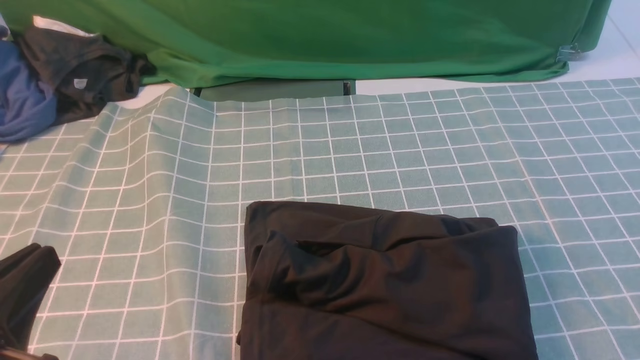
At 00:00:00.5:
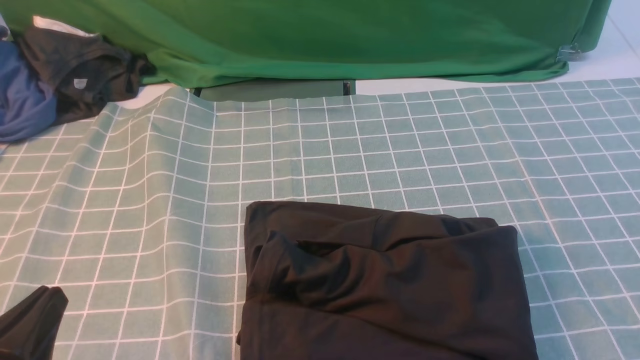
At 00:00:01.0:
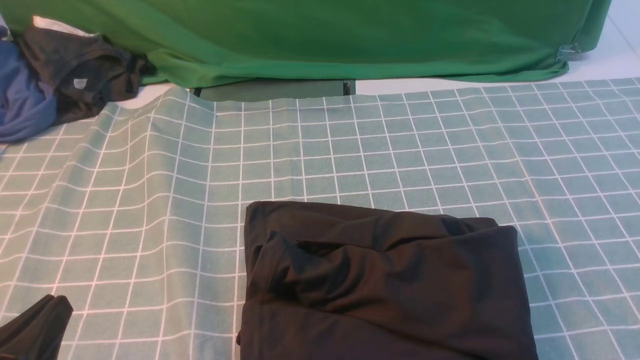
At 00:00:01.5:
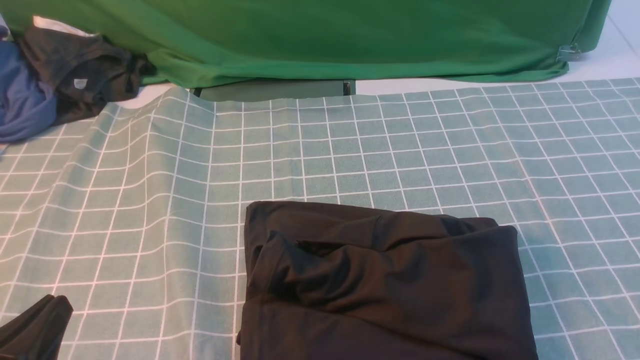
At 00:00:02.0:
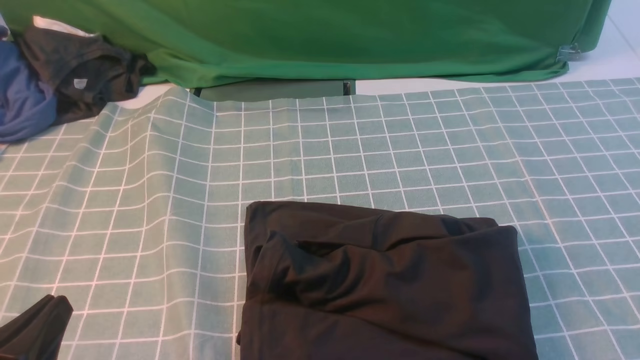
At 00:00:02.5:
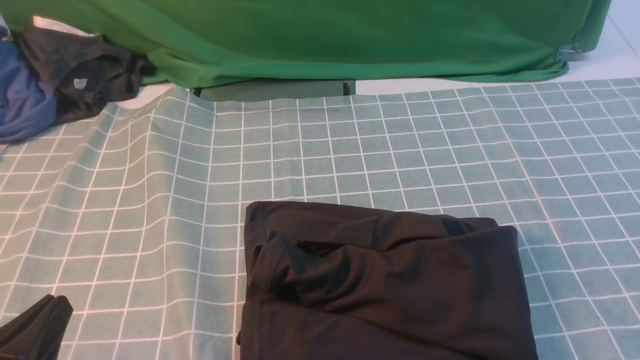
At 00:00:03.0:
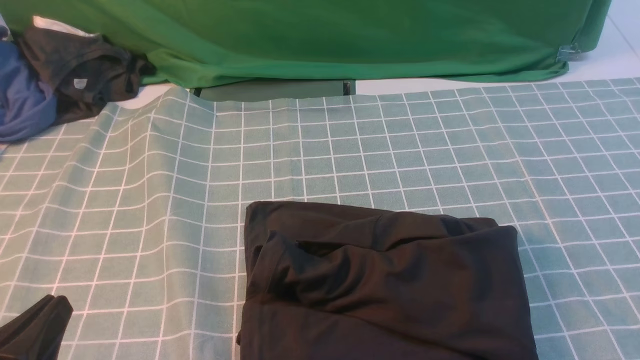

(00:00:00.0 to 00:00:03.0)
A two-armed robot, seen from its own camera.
00:00:00.0 - 00:00:01.5: The left gripper shifts approximately 5 cm downward.
00:00:01.5 - 00:00:03.0: Neither gripper changes place.

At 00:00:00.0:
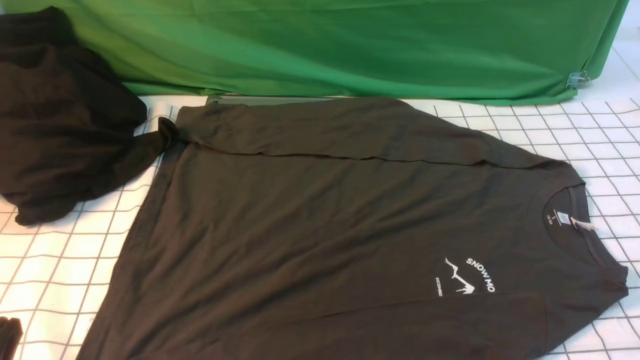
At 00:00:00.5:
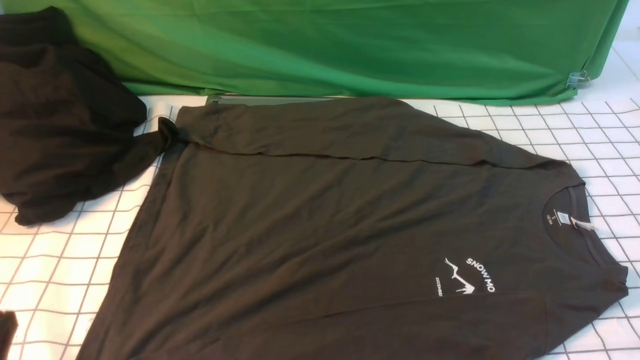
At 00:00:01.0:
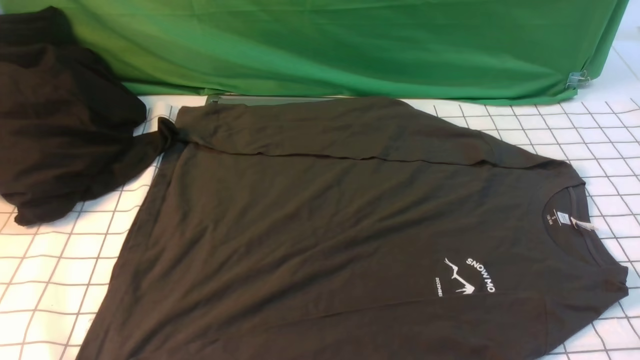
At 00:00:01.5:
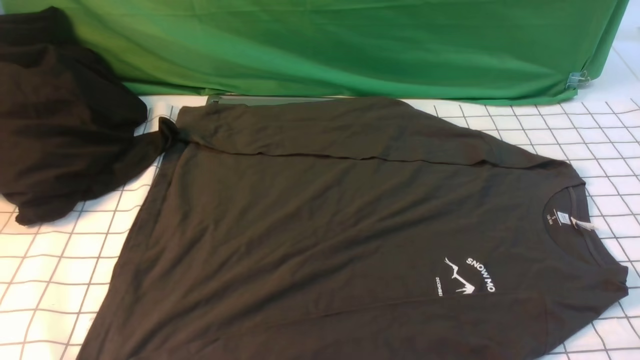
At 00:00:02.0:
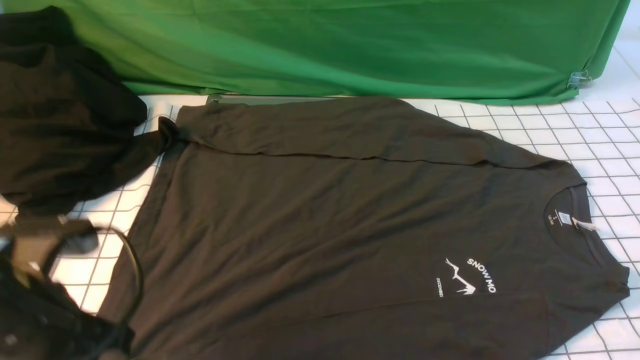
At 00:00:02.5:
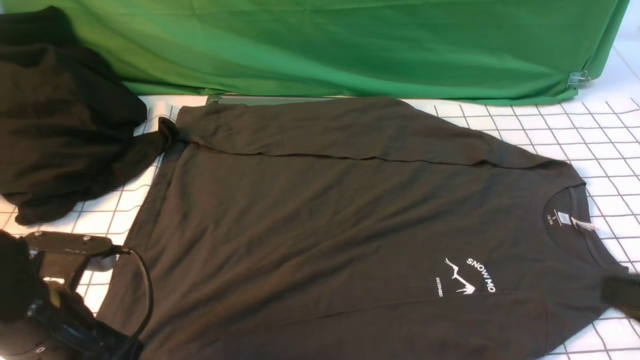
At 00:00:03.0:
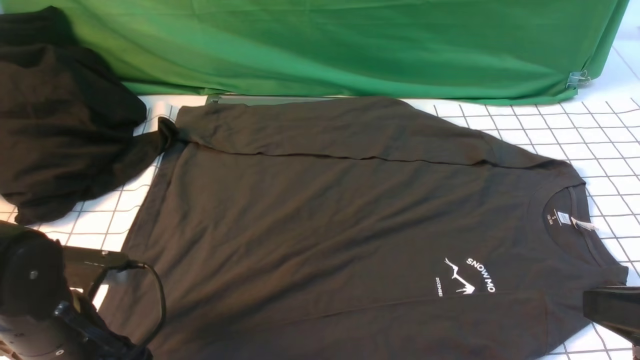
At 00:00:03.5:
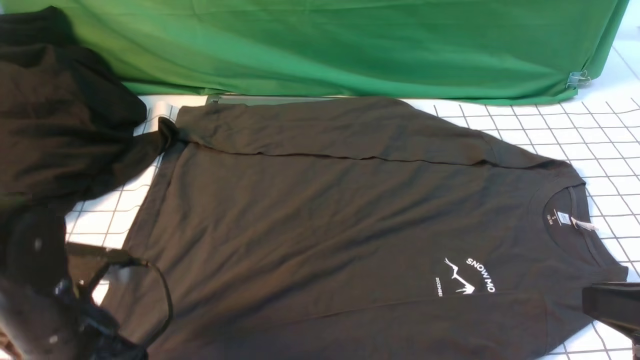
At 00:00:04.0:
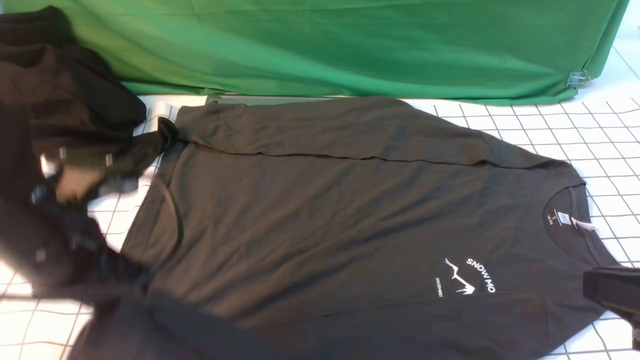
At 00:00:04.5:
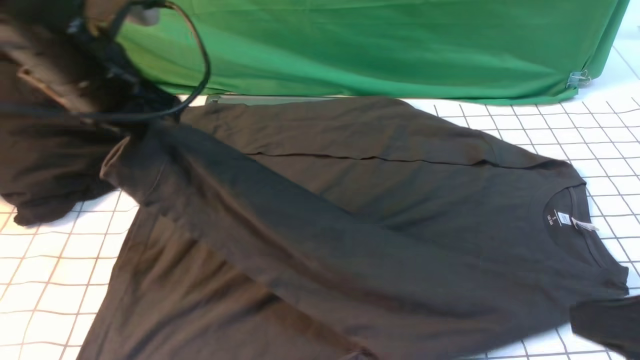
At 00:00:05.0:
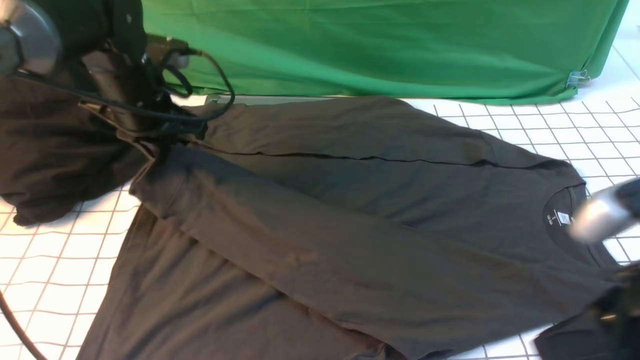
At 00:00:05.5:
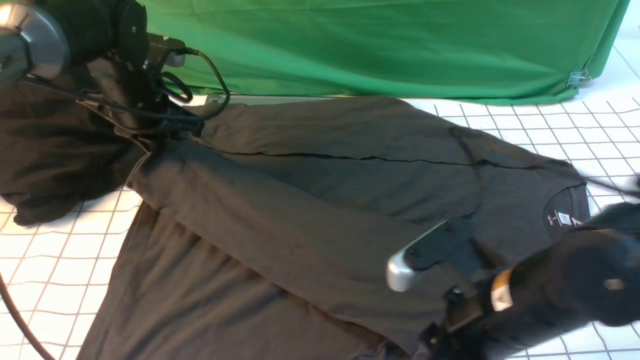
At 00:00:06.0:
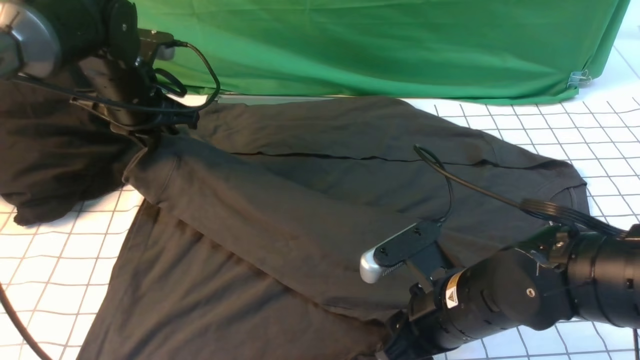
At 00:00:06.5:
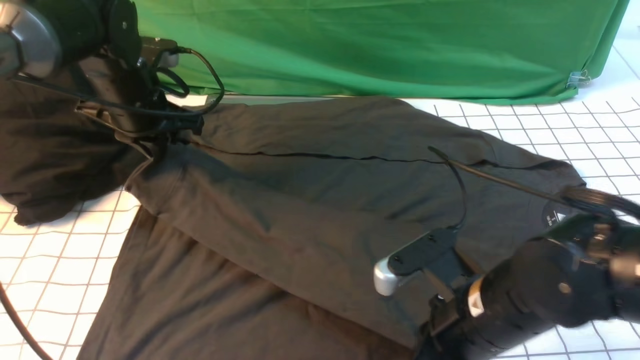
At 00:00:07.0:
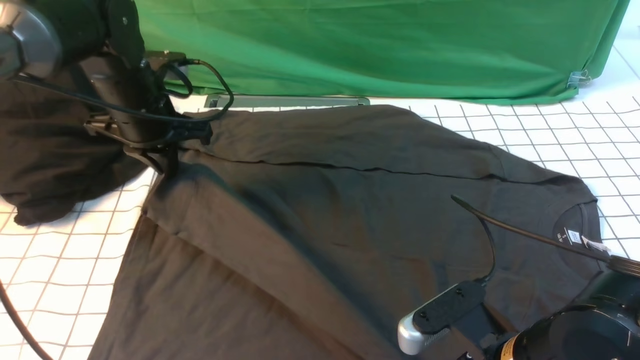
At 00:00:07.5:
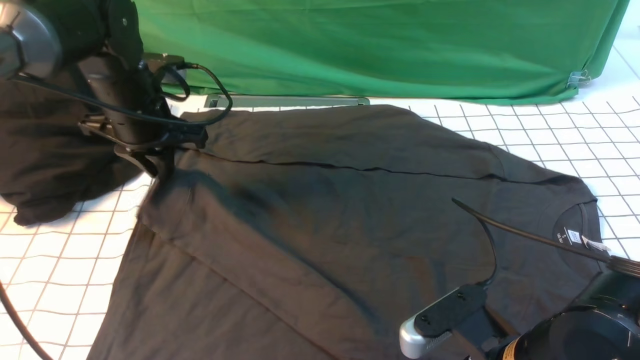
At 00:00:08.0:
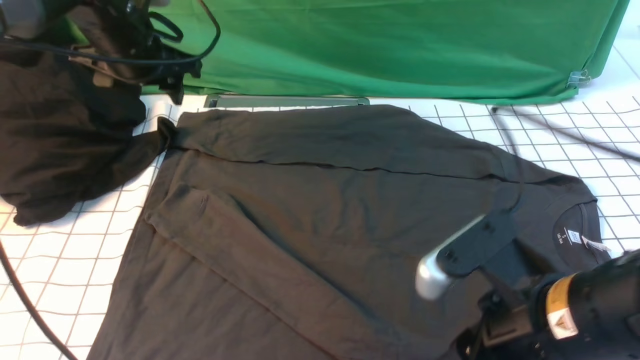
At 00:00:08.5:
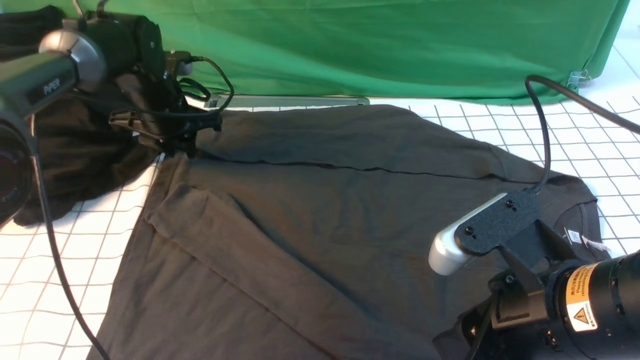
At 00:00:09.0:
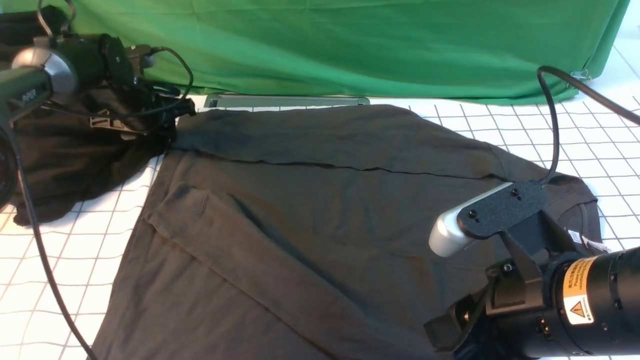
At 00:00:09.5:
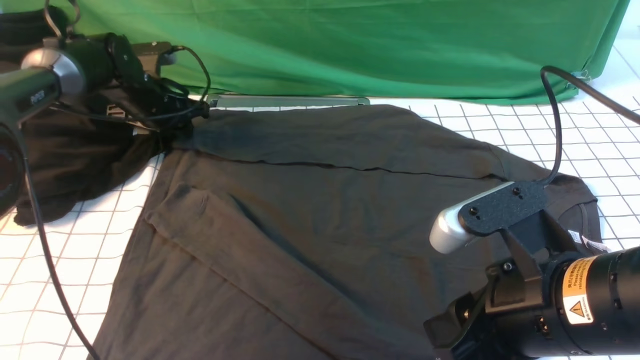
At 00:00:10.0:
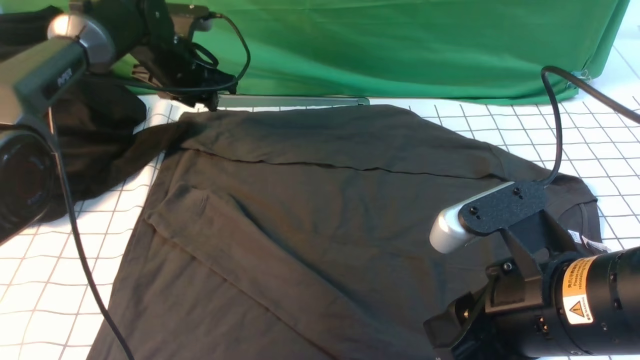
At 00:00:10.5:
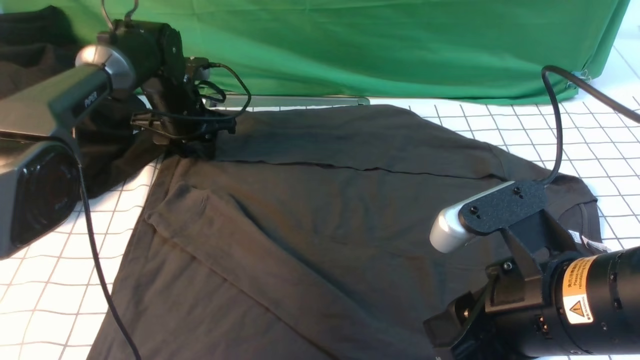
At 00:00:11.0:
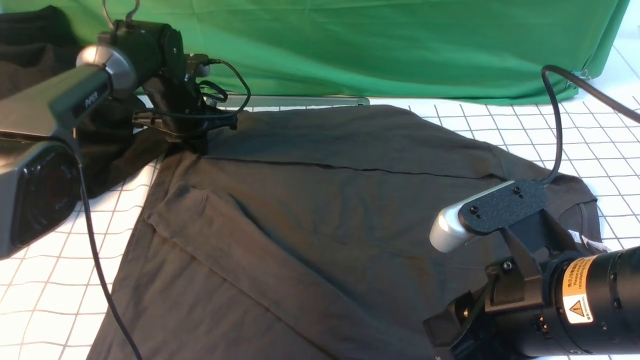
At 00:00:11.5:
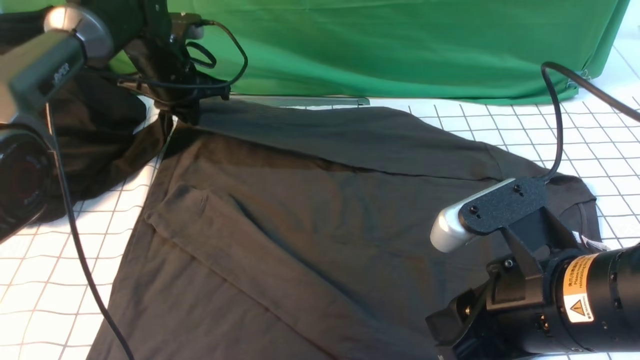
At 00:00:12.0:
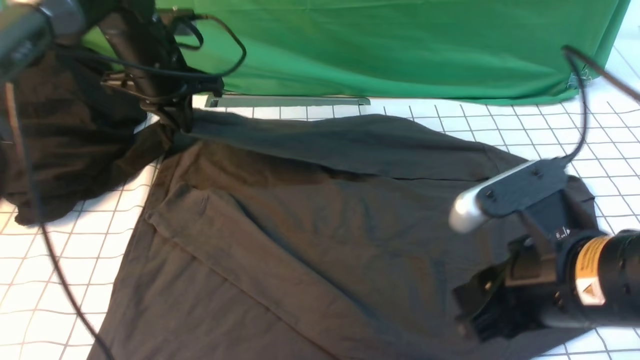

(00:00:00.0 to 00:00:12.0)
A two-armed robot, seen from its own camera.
Step, 00:00:00.0 - 00:00:03.0: use the left arm to clamp the cuff closest to it.
Step, 00:00:03.5 - 00:00:07.5: use the left arm to drag and place the cuff at the centered position on the left edge of the fabric.
Step, 00:00:08.0 - 00:00:11.0: use the left arm to clamp the cuff farthest from it.
00:00:00.0 - 00:00:02.0: The right gripper travels upward by roughly 5 cm; the left gripper goes some 10 cm forward, and goes upward and returns, some 15 cm each way.
00:00:02.0 - 00:00:04.0: The left gripper is displaced forward by about 5 cm, and opens, then closes once more. Meanwhile the right gripper moves forward, upward and to the left, approximately 10 cm.
00:00:04.0 - 00:00:06.0: The left gripper moves forward, about 20 cm. The right gripper goes about 25 cm to the left, downward and forward, and opens its fingers.
00:00:06.0 - 00:00:08.0: The left gripper opens up, while the right gripper travels upward and backward by about 10 cm, and closes, then opens again.
00:00:08.0 - 00:00:10.0: The left gripper travels forward and downward by about 10 cm.
00:00:10.0 - 00:00:12.0: The left gripper travels backward and upward by about 10 cm, and closes.

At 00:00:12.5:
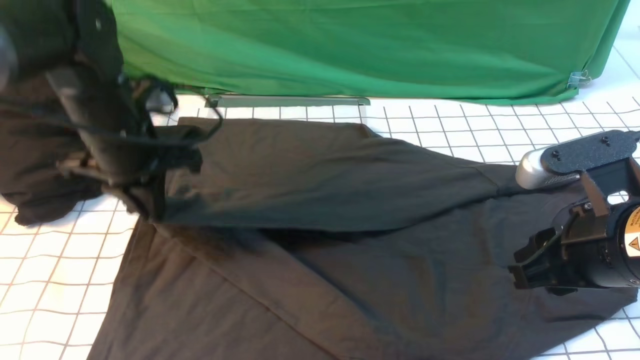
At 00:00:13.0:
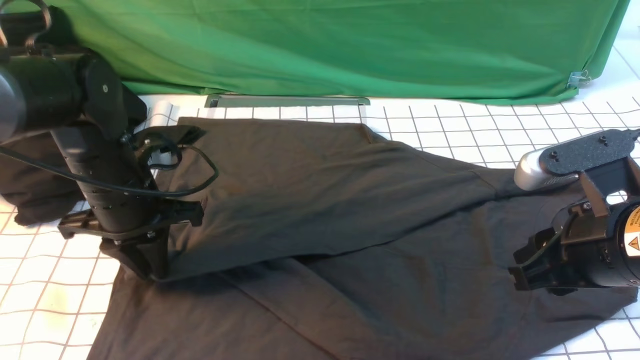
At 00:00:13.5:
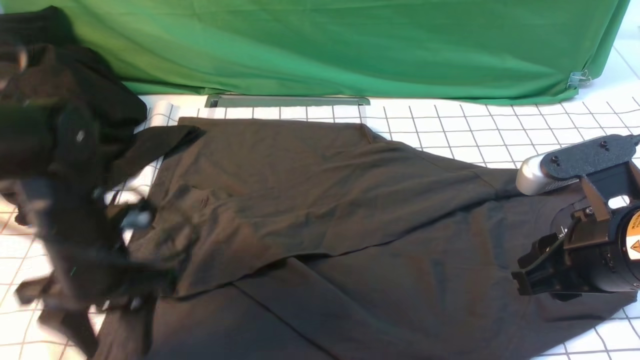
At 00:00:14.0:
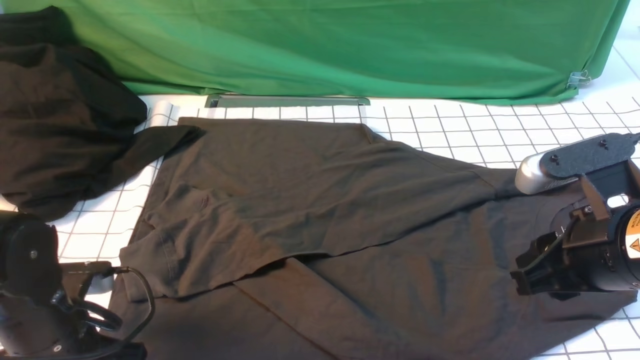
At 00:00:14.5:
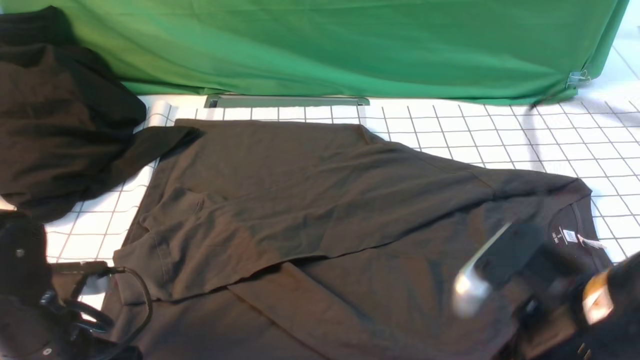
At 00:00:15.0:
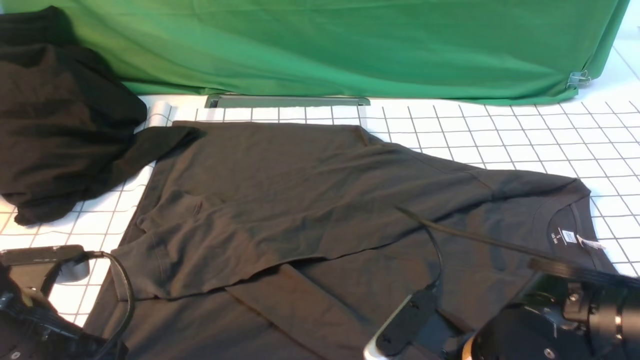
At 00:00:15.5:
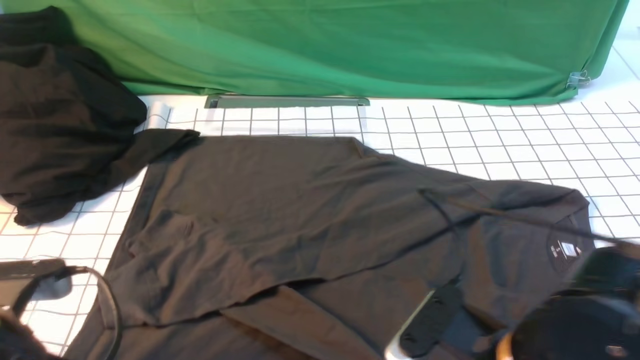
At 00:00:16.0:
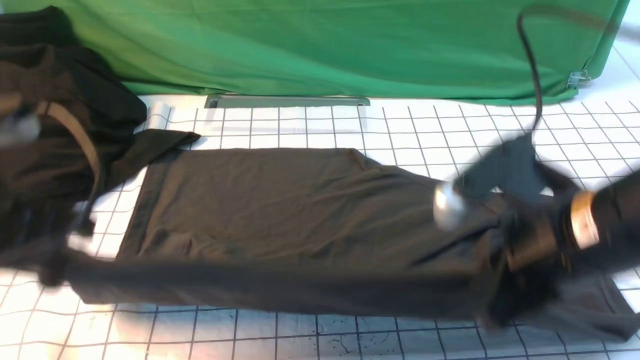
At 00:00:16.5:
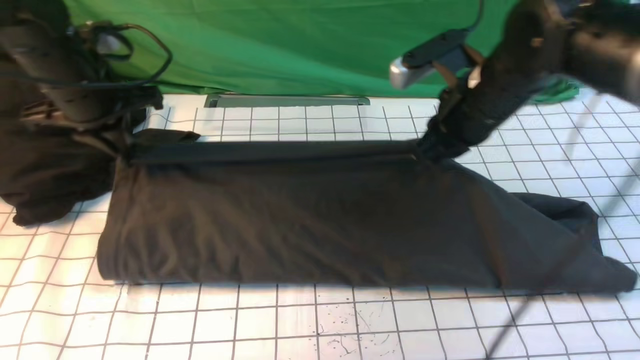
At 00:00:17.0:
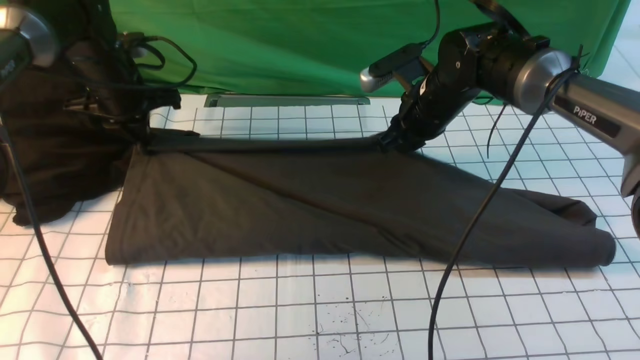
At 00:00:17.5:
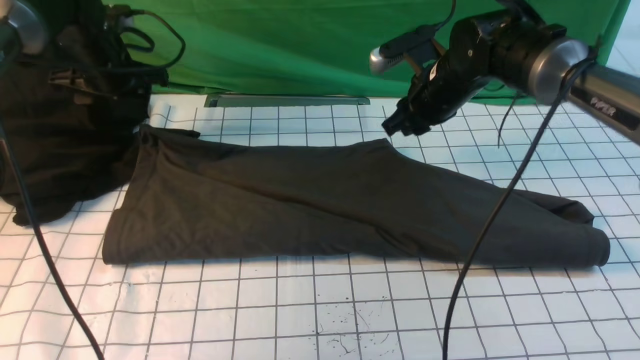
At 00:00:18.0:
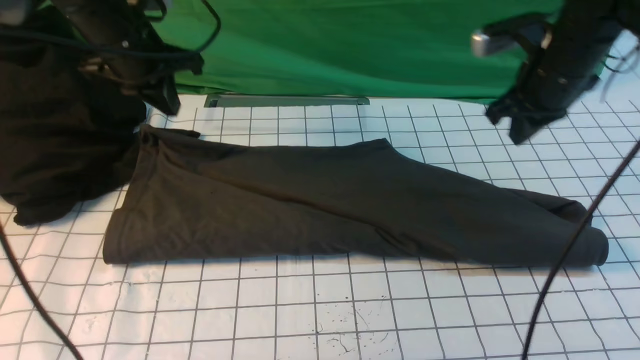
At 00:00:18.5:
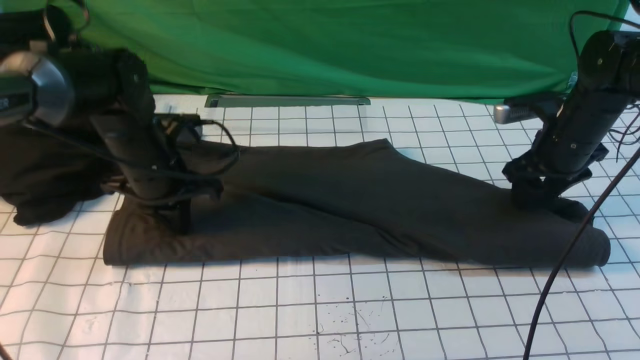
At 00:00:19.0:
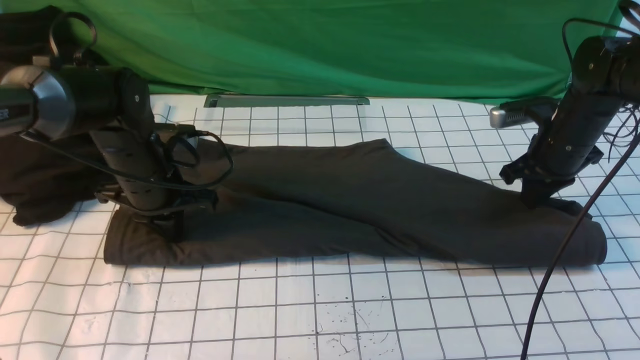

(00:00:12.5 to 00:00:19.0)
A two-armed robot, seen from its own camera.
Step, 00:00:12.5 - 00:00:15.0: use both arms simultaneously to clamp the lower edge of the clothing fabric.
Step, 00:00:15.5 - 00:00:17.0: use both arms to drag the lower edge of the fabric forward and fold it over the upper edge.
00:00:12.5 - 00:00:14.5: The left gripper is displaced backward by roughly 15 cm, and opens, then closes again, while the right gripper moves some 5 cm.
00:00:14.5 - 00:00:17.0: The two grippers go some 30 cm forward.
00:00:17.0 - 00:00:19.0: The right gripper goes roughly 15 cm to the right, and opens, then closes once more. The left gripper shifts roughly 15 cm backward, to the right and downward, and opens and closes again.
